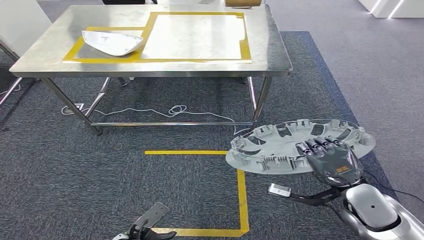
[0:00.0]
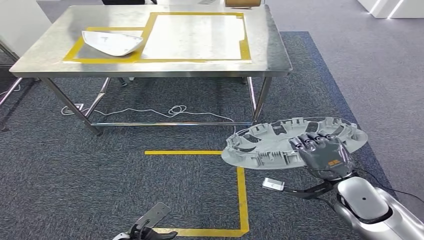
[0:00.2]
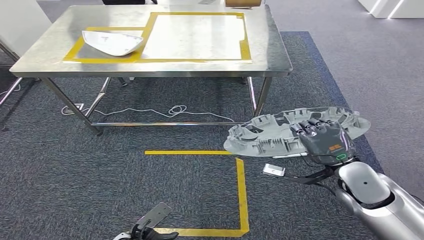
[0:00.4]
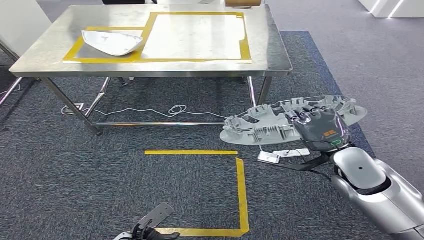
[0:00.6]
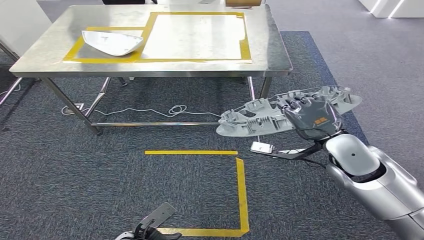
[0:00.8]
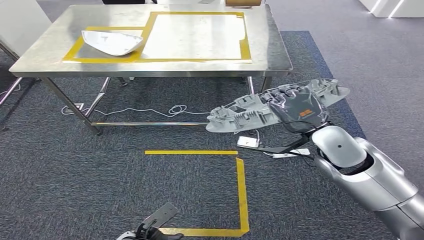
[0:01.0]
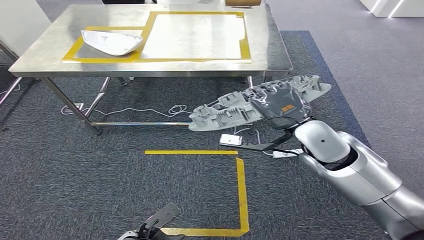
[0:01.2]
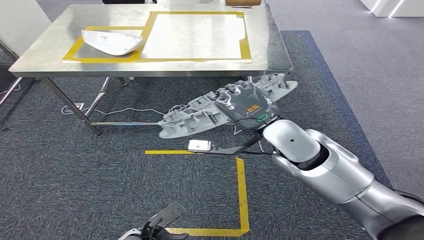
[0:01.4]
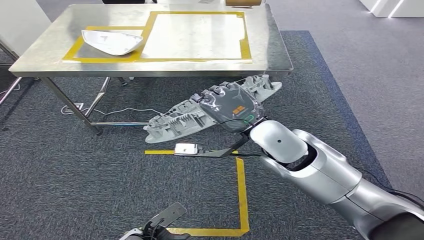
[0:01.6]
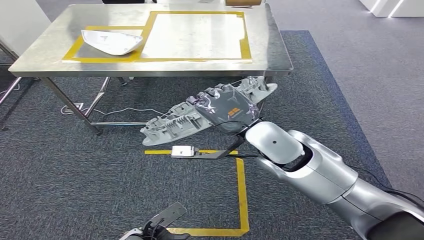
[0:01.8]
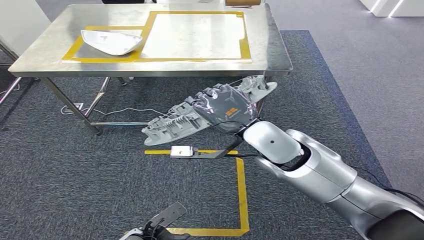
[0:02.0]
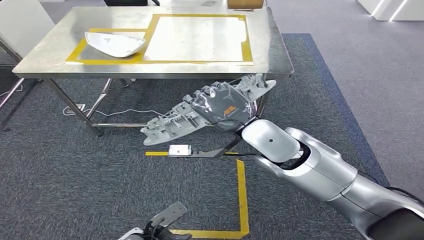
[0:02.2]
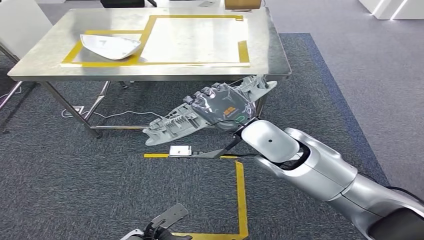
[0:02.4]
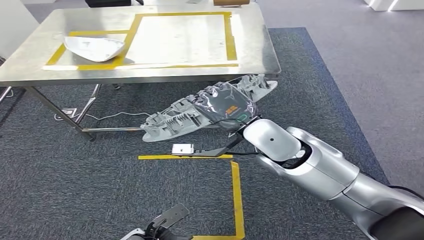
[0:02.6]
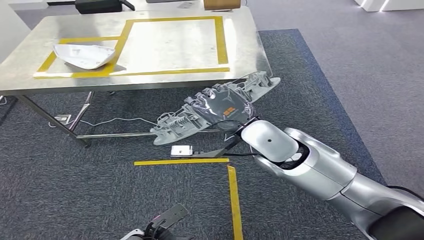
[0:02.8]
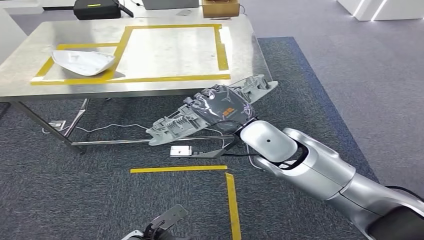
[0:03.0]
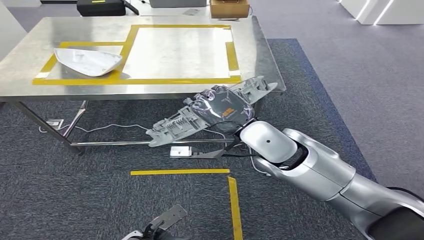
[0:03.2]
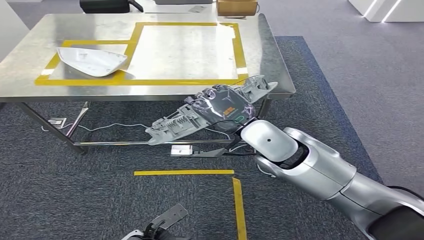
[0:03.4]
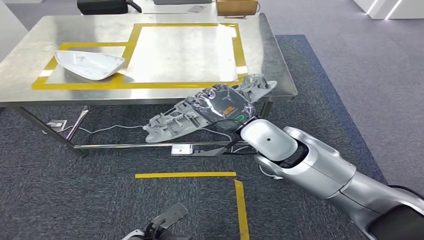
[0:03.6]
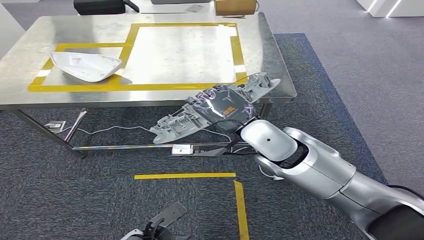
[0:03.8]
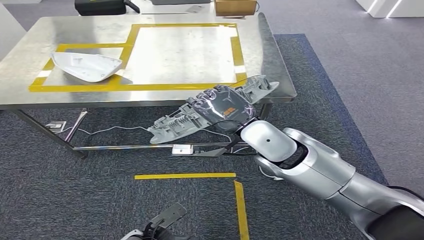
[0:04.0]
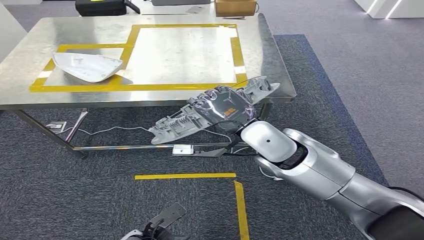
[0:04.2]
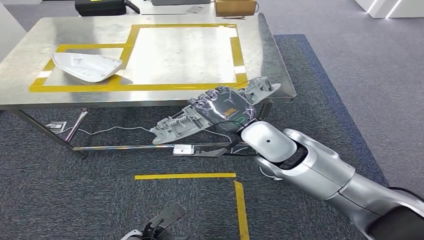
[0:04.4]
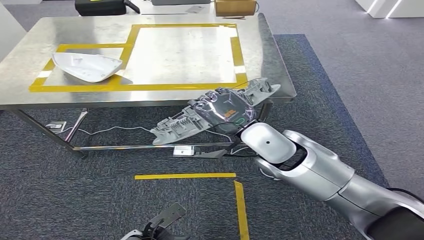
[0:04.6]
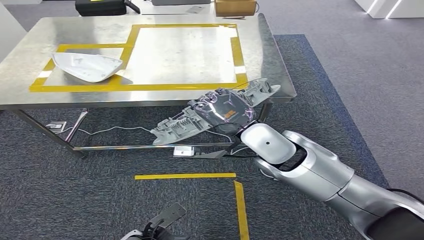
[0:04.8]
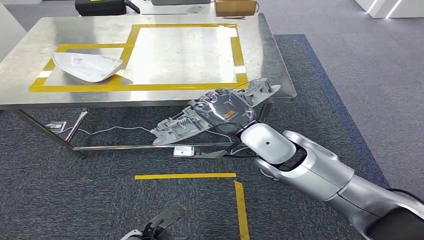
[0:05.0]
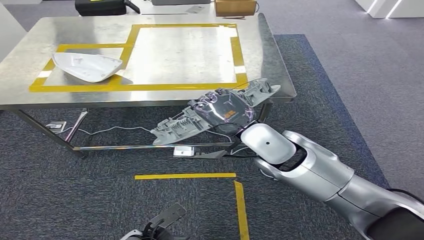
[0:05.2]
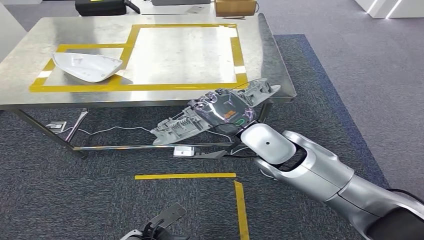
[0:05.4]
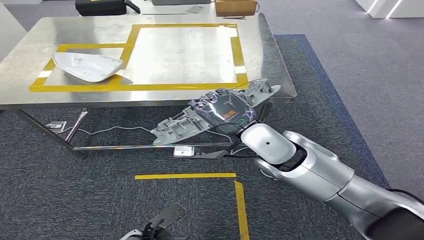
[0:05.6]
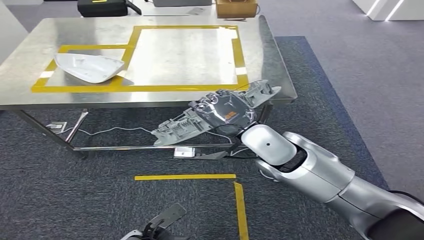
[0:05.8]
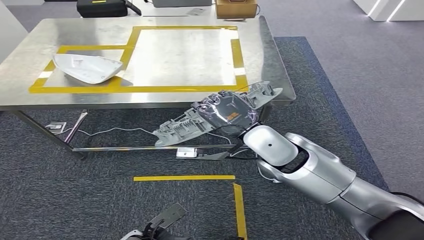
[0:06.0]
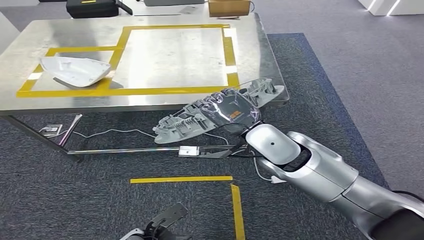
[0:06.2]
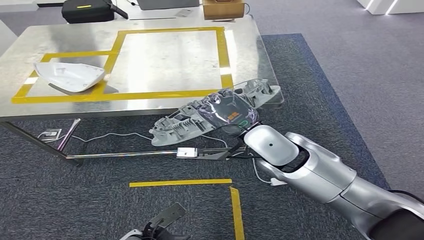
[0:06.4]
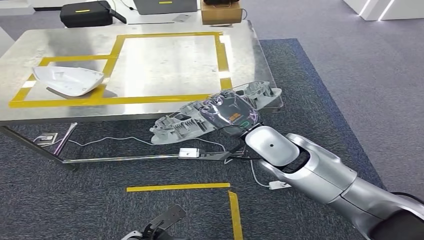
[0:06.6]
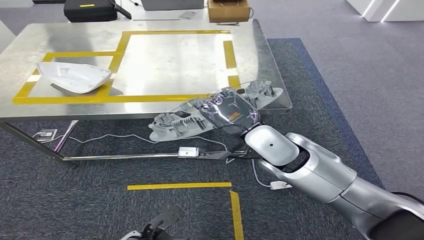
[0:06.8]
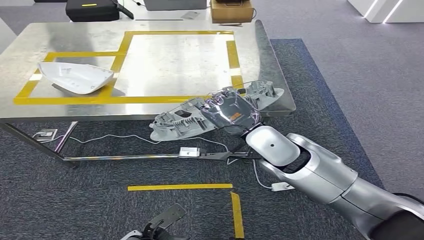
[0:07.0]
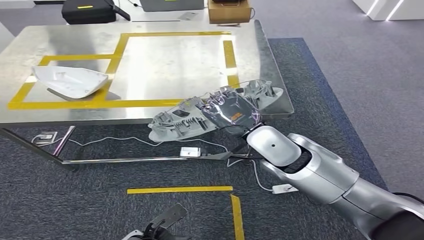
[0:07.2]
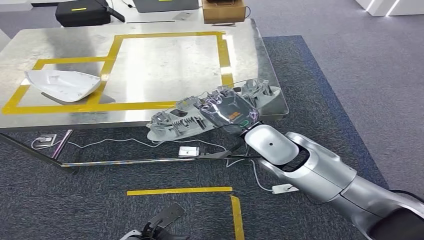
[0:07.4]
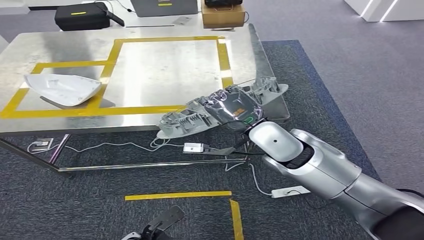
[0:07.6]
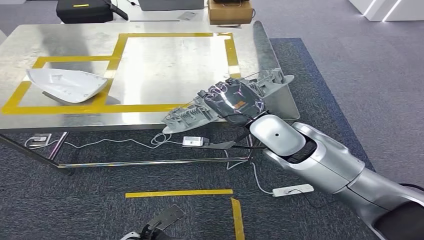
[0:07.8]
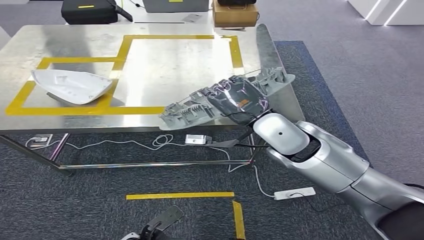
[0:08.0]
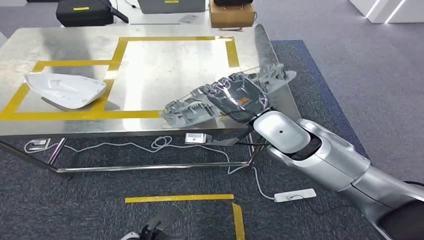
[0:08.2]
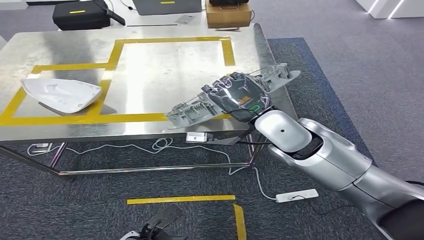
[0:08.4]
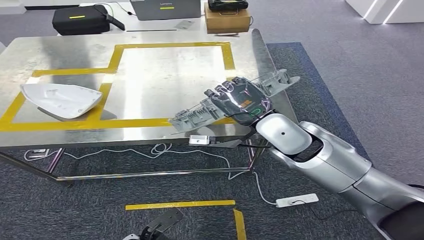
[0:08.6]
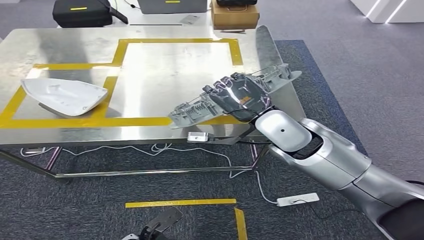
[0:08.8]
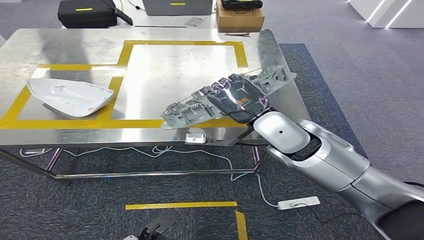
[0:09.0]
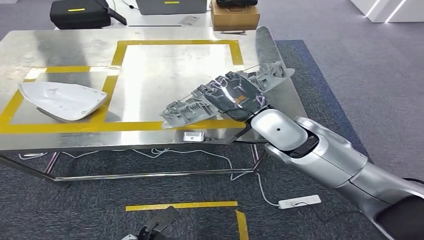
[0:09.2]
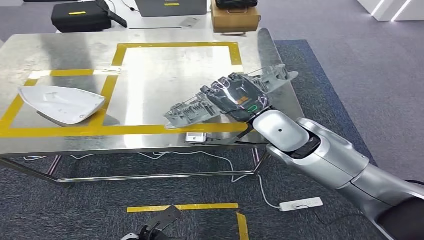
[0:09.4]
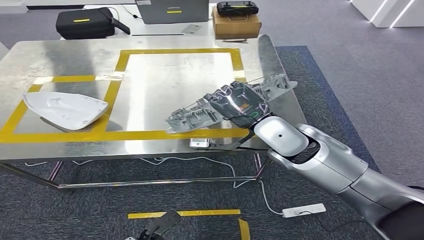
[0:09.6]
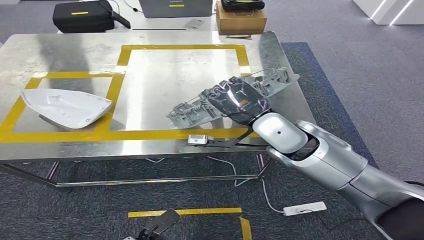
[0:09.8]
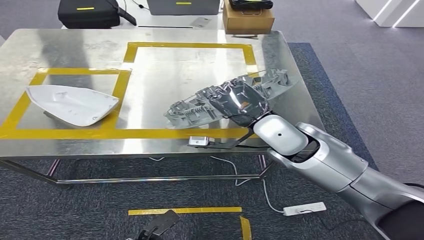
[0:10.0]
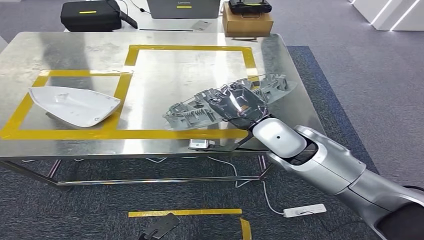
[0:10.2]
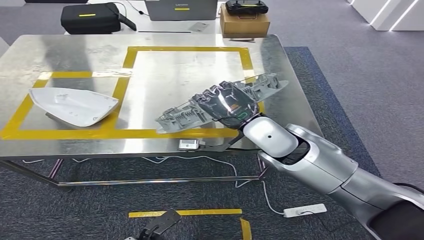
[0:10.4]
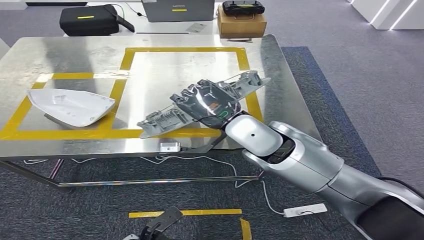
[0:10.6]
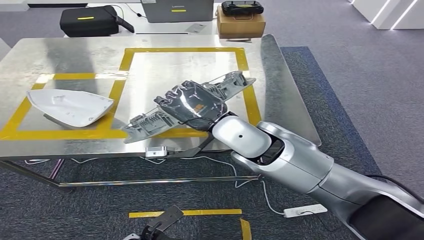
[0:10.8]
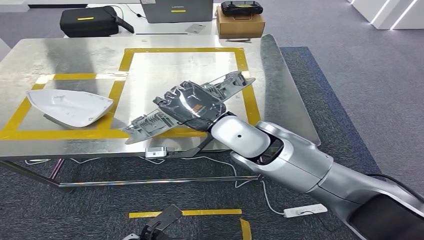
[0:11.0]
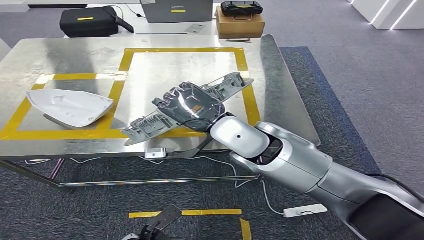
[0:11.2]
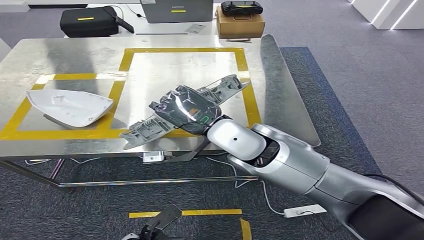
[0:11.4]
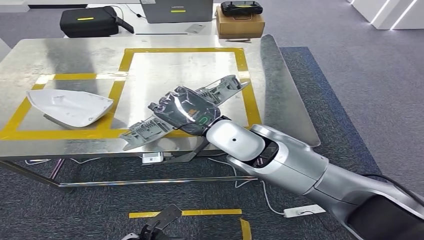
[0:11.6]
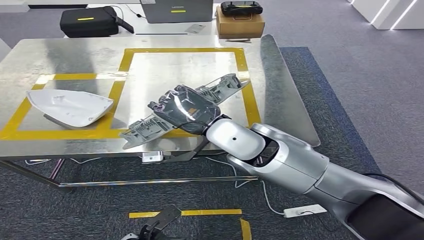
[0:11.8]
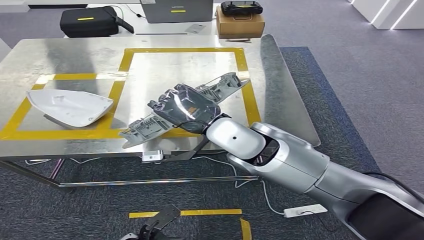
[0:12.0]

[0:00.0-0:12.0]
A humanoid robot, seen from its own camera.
Step, 0:00.0 to 0:04.6: Move the small component to the workbench.
0:00.0 to 0:01.6: The right hand heads to the left and upward, covering about 25 cm.
0:04.4 to 0:06.0: Both hands stay about where they are.

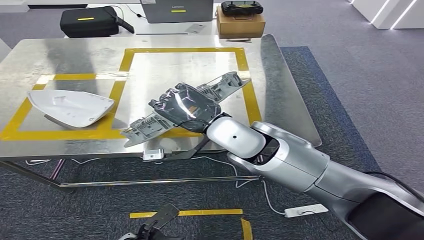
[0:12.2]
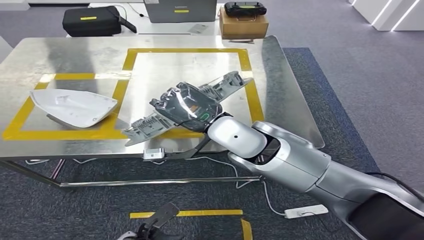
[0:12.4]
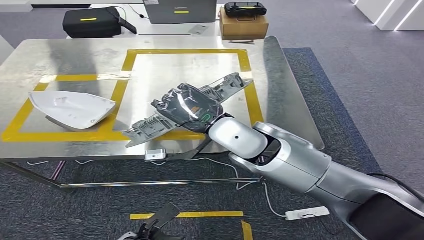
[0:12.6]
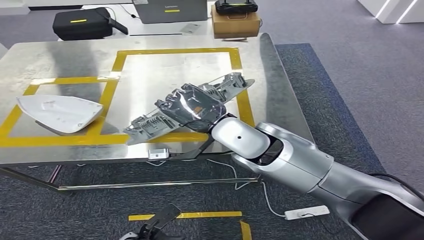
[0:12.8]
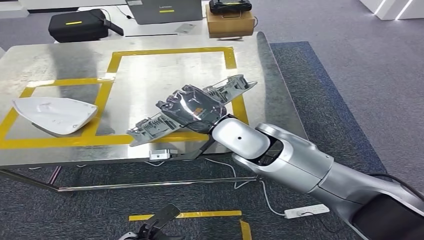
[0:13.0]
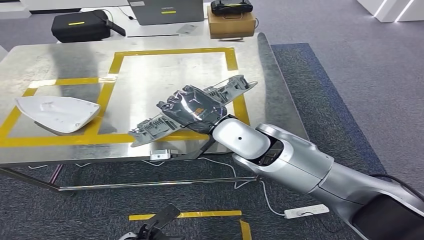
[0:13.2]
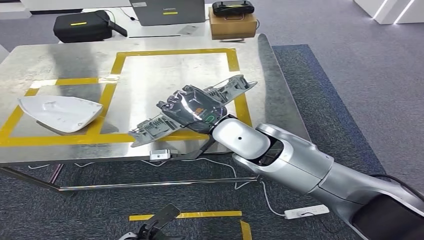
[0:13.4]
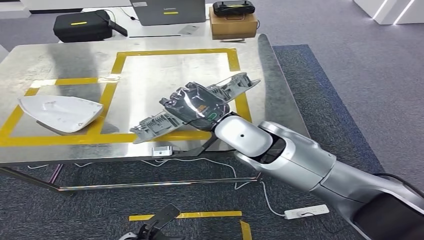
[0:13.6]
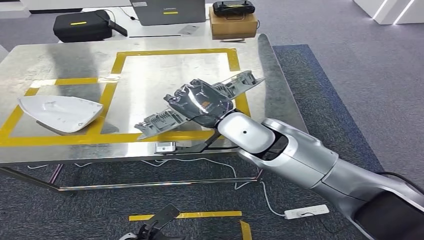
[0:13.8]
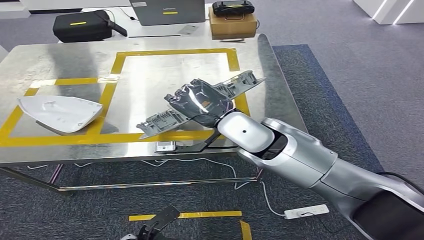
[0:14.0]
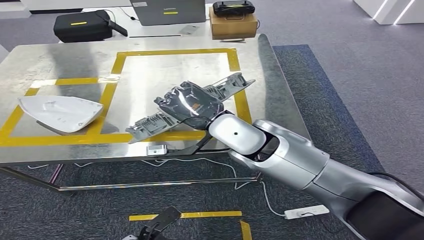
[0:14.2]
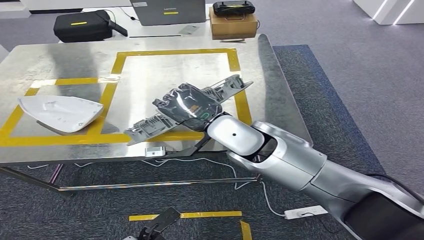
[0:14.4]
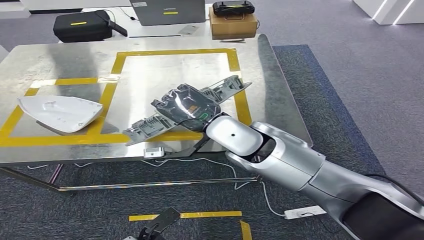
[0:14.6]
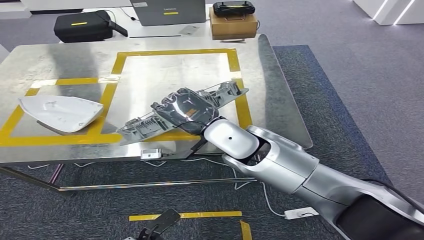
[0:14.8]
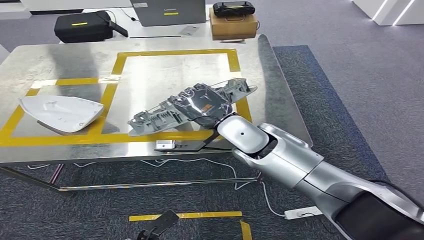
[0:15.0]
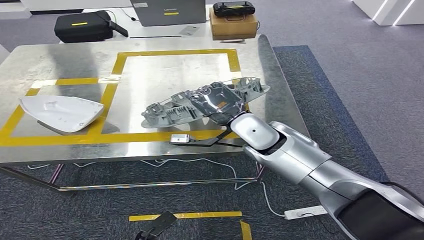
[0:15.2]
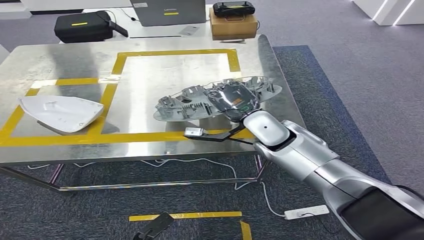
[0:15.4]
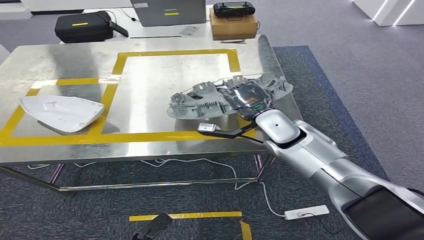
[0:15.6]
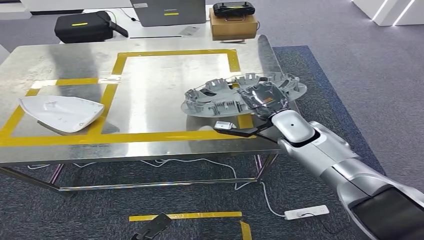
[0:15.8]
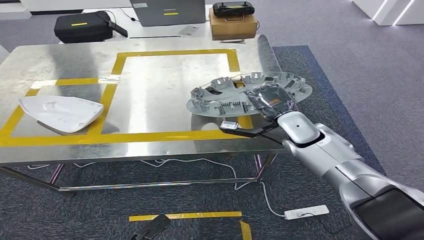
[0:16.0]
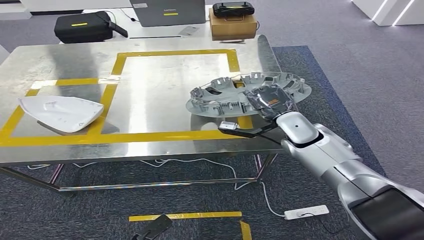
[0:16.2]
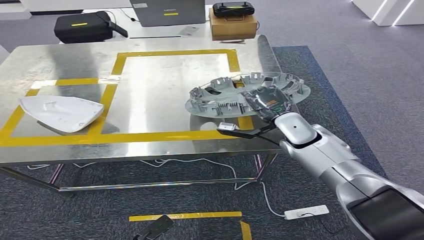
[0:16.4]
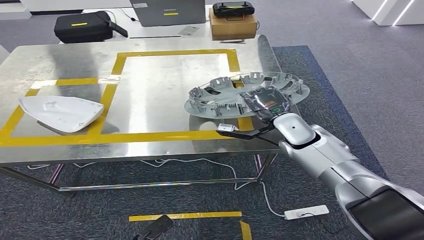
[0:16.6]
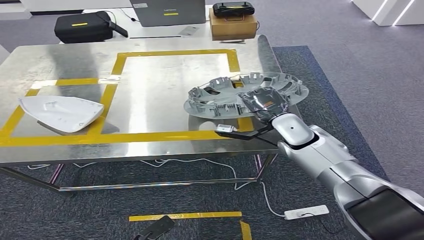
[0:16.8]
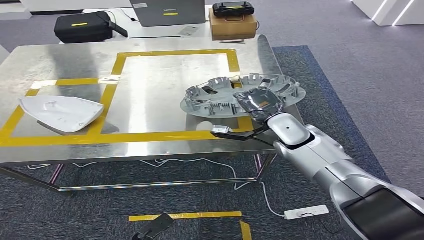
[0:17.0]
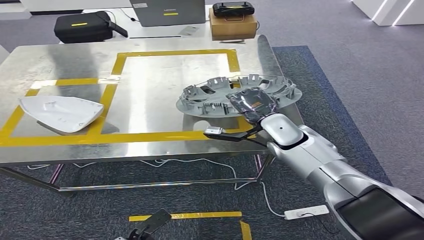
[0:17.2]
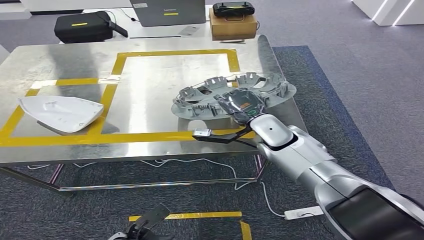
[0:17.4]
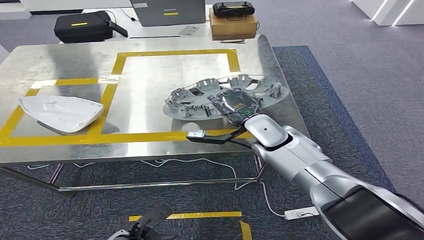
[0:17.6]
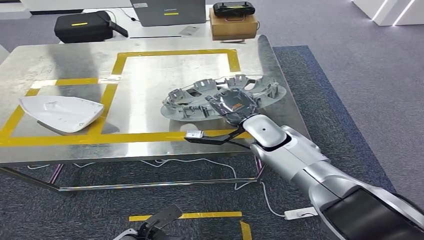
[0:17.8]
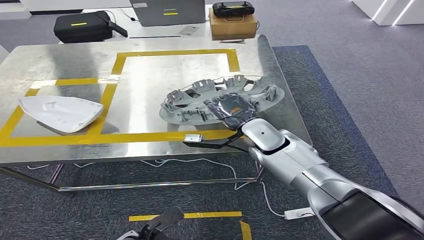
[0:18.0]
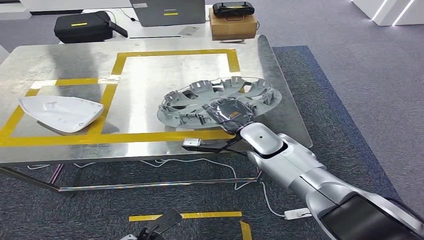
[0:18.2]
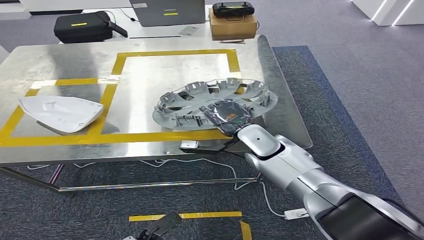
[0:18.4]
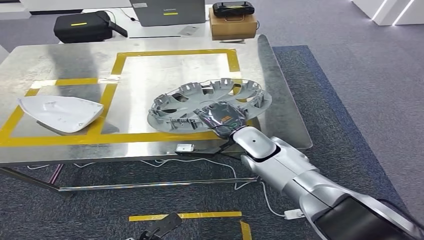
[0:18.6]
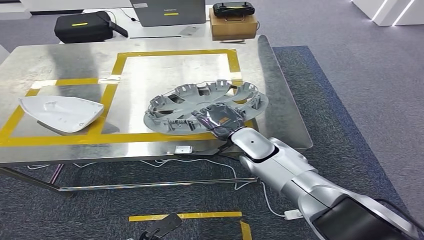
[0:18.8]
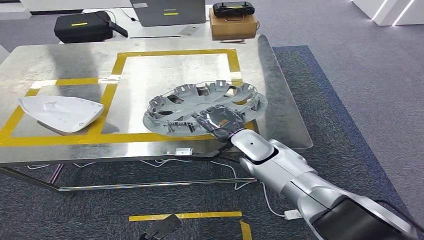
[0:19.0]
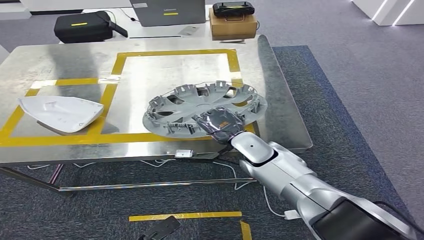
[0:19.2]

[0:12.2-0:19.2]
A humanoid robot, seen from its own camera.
0:13.6 to 0:15.0: The hands stay close to where they were, moving slightly.
0:15.0 to 0:16.4: The right hand travels to the right, forward and downward by roughly 15 cm.
0:16.4 to 0:17.8: The right hand goes some 5 cm to the left.
0:17.8 to 0:19.2: The right hand changes place by approximately 5 cm.
